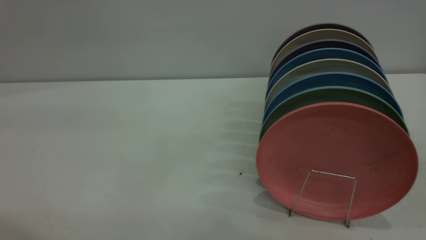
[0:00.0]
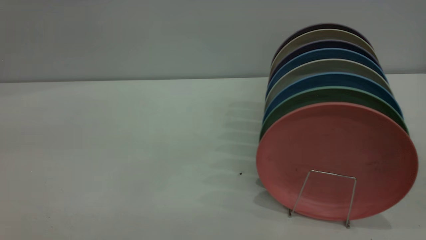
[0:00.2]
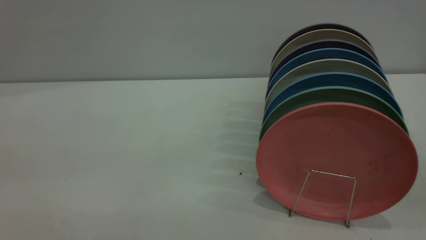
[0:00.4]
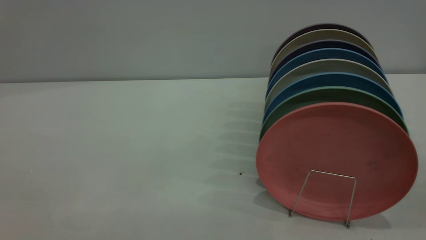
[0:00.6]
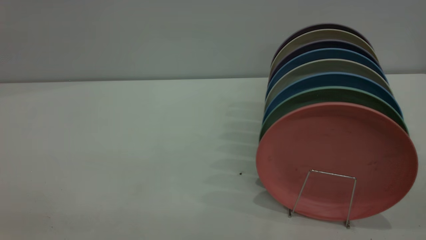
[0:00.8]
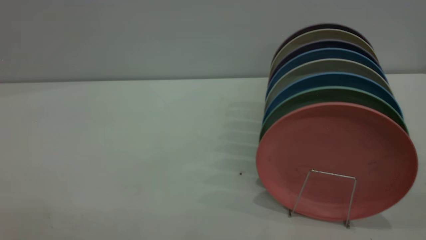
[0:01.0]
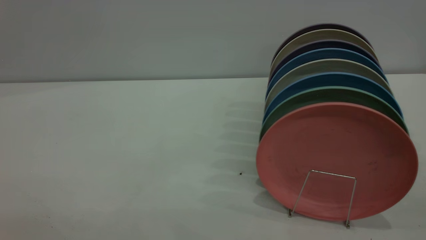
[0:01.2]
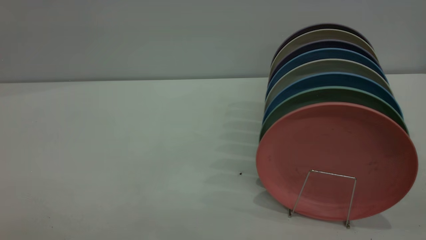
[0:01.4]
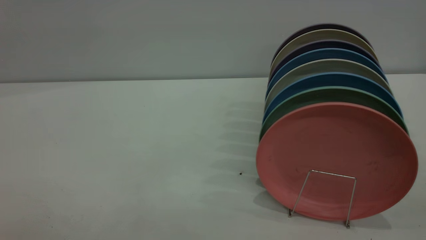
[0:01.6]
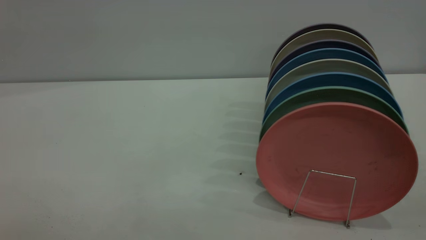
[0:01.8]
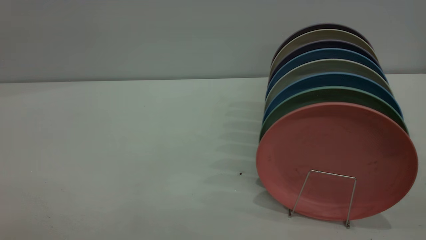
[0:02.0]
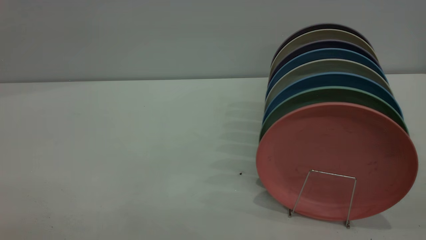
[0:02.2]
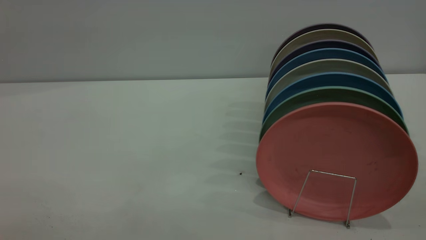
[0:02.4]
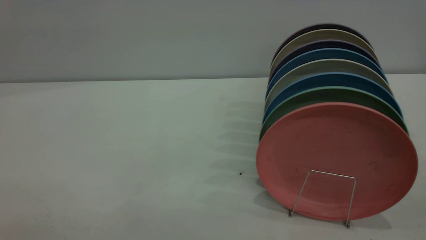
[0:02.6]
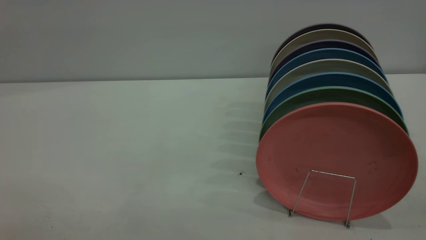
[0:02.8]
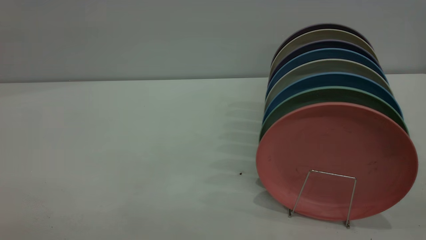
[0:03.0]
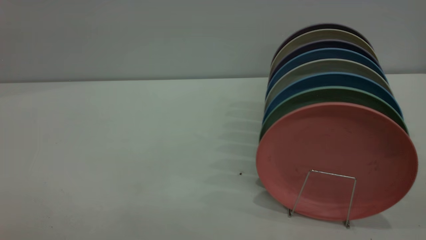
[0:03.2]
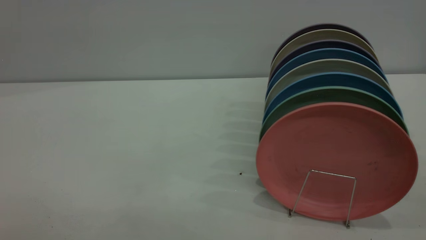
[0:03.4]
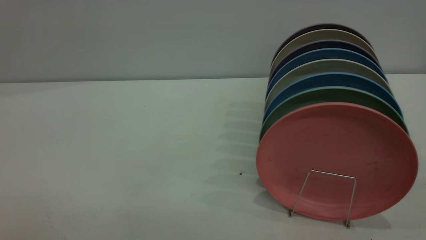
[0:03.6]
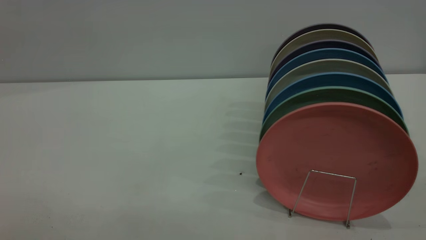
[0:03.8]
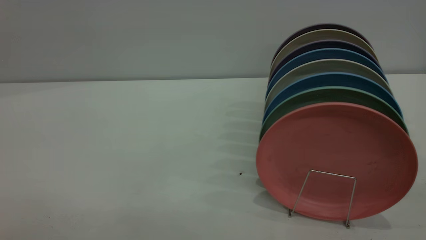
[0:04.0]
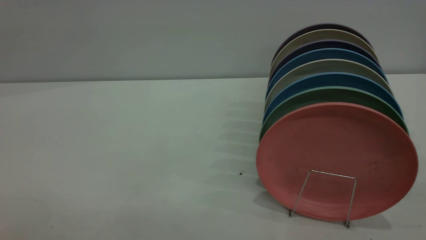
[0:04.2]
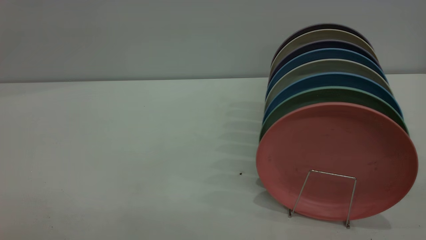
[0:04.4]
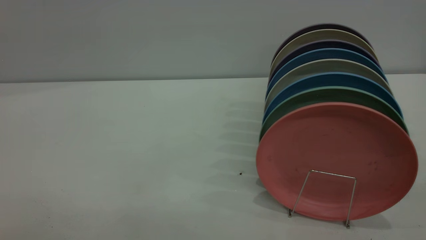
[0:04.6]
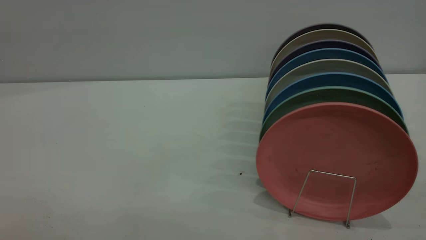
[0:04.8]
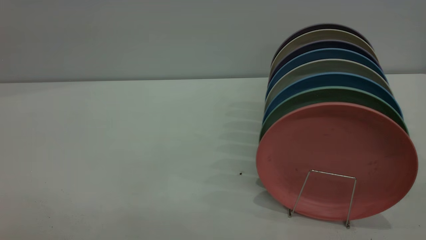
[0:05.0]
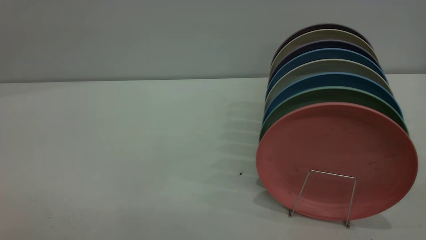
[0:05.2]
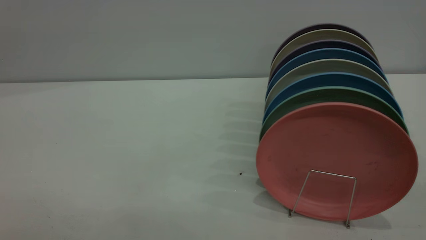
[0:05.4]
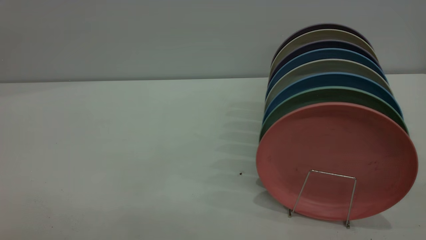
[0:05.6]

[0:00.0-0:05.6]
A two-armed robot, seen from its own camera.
Task of the whole recording: put the plate on the plate rack.
0:04.2 to 0:05.6: Neither gripper changes place.

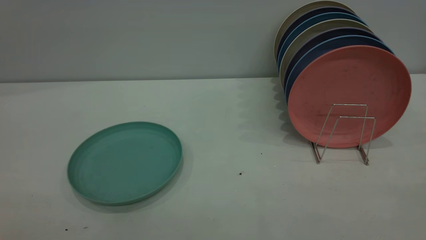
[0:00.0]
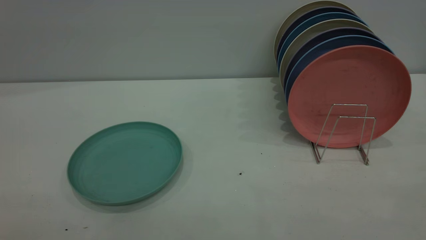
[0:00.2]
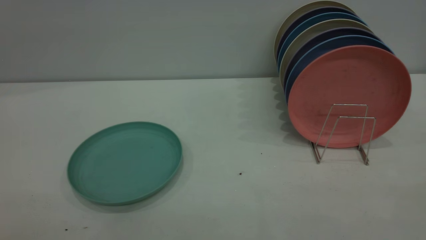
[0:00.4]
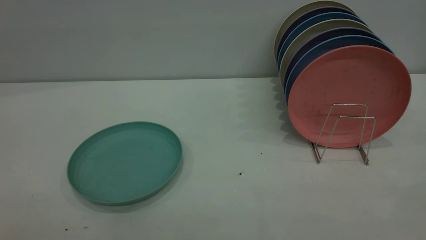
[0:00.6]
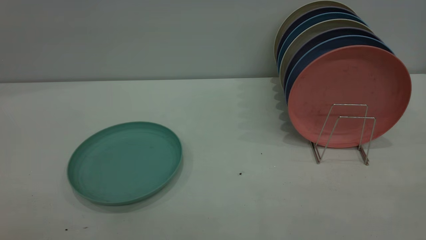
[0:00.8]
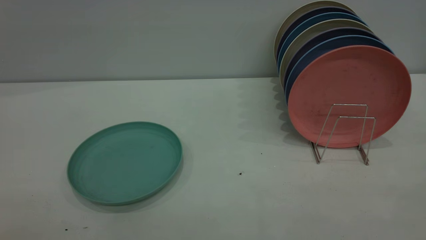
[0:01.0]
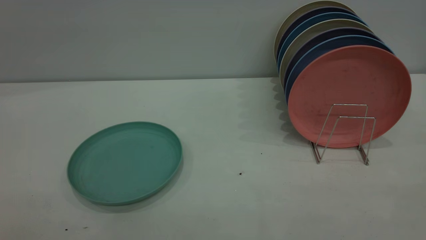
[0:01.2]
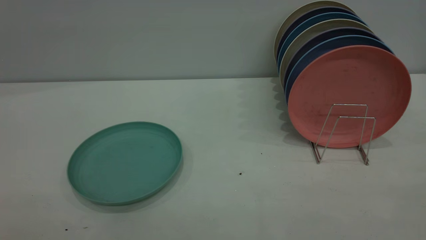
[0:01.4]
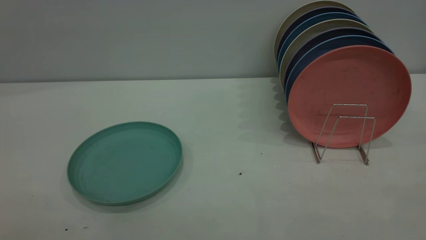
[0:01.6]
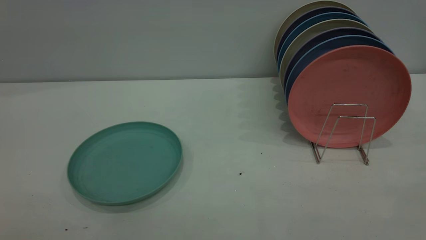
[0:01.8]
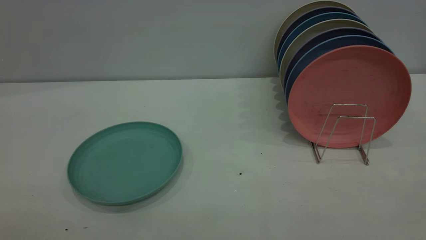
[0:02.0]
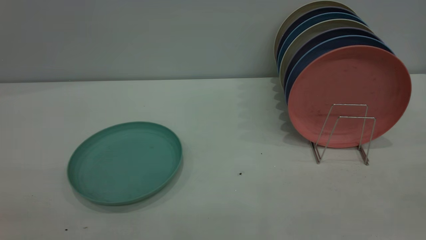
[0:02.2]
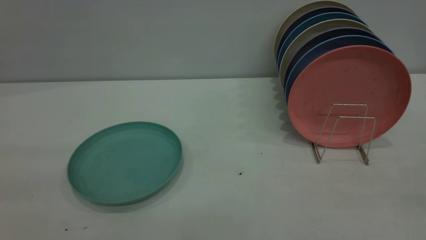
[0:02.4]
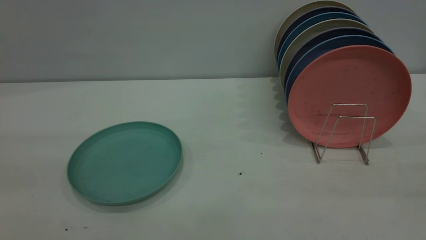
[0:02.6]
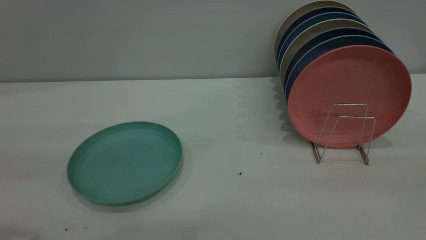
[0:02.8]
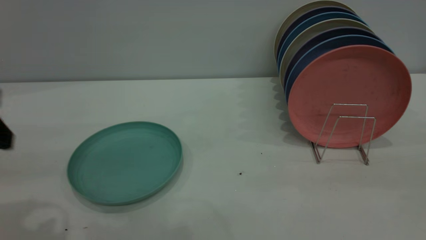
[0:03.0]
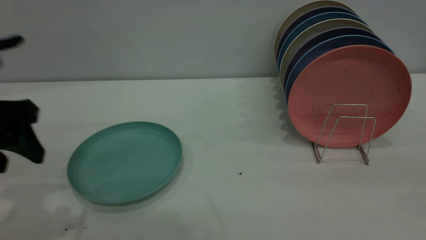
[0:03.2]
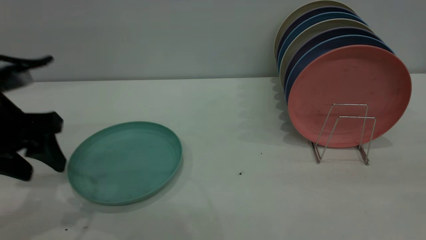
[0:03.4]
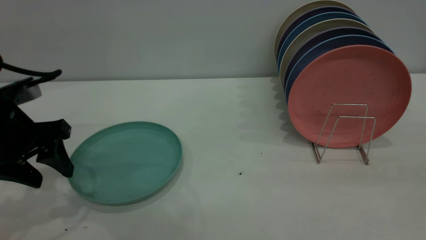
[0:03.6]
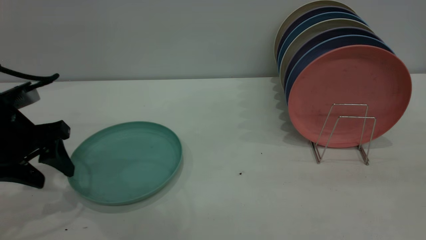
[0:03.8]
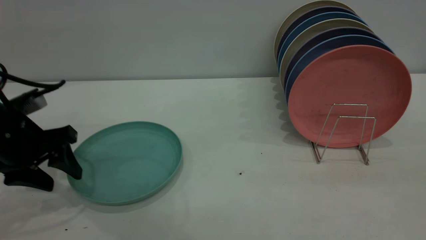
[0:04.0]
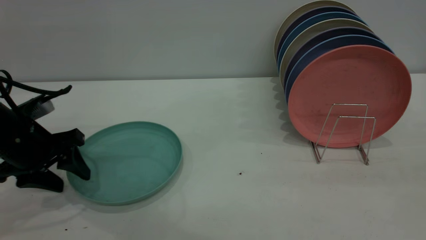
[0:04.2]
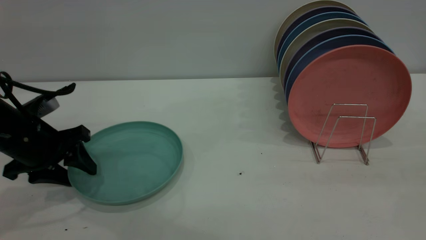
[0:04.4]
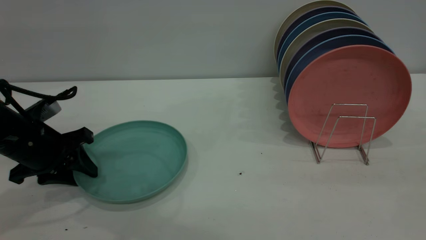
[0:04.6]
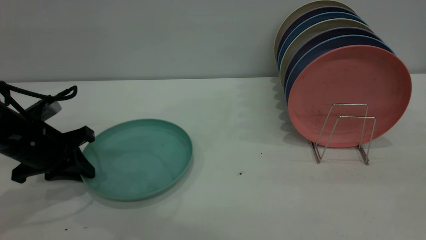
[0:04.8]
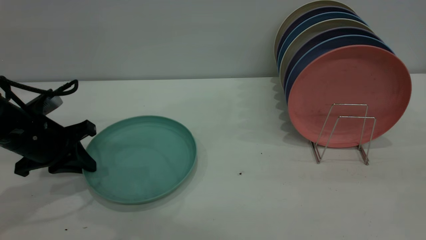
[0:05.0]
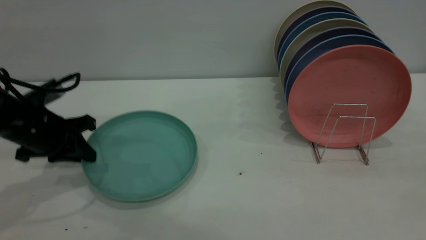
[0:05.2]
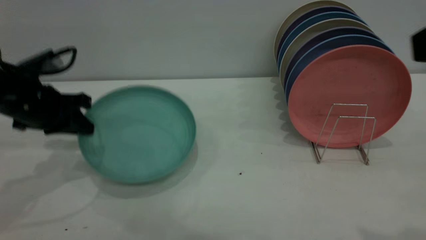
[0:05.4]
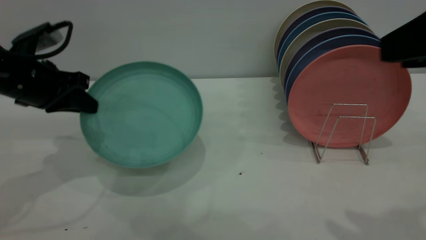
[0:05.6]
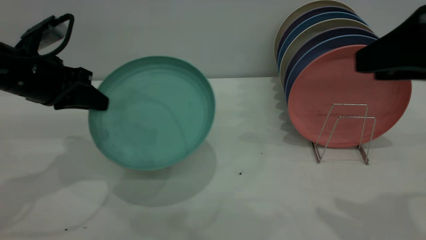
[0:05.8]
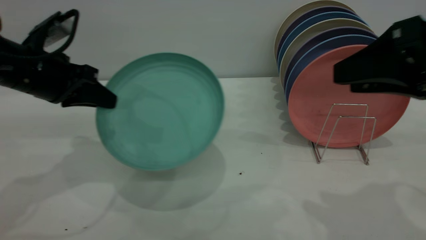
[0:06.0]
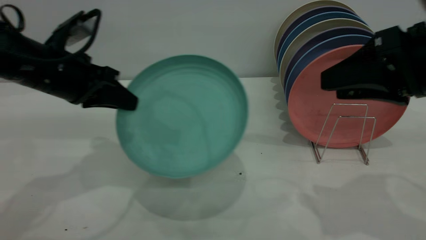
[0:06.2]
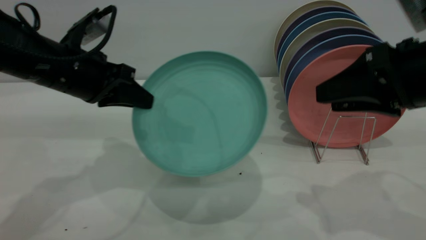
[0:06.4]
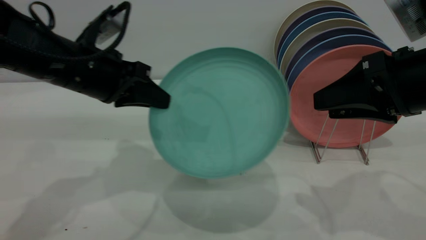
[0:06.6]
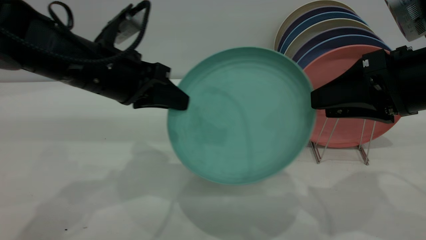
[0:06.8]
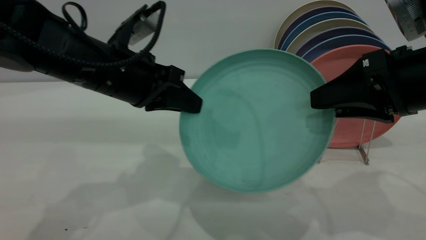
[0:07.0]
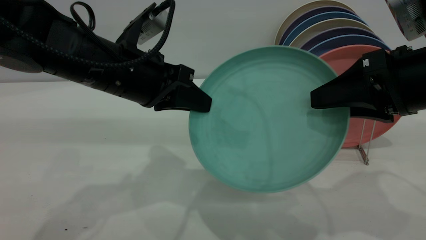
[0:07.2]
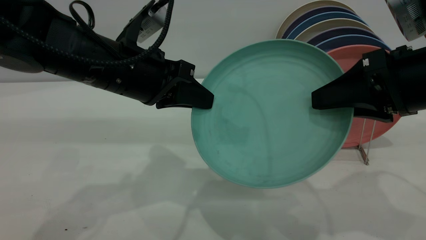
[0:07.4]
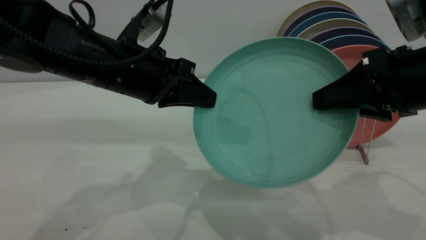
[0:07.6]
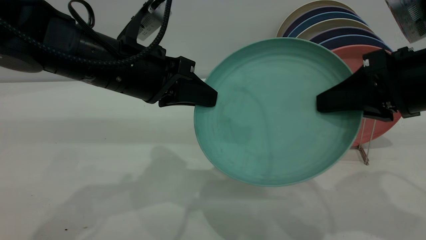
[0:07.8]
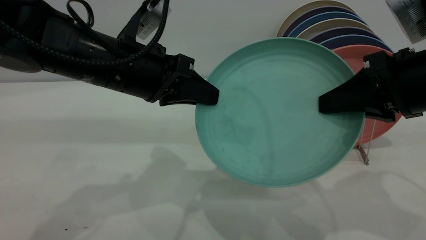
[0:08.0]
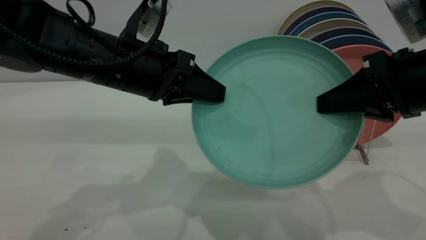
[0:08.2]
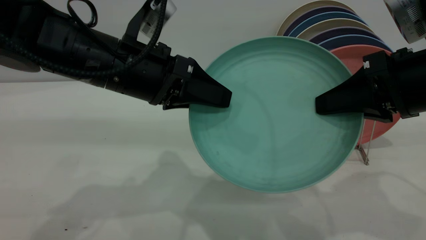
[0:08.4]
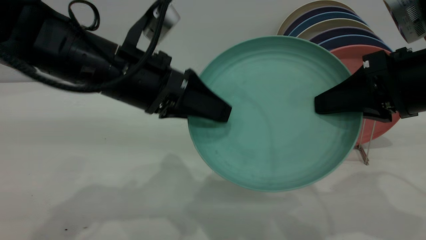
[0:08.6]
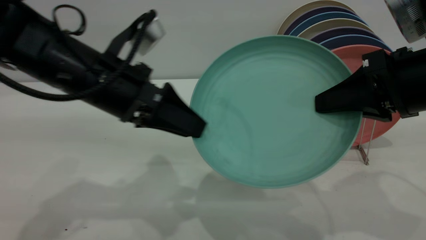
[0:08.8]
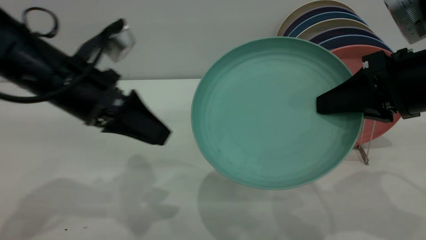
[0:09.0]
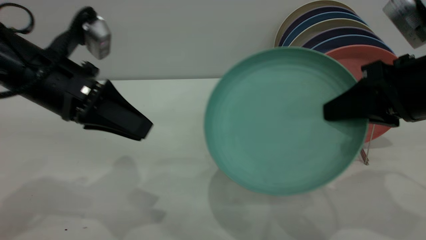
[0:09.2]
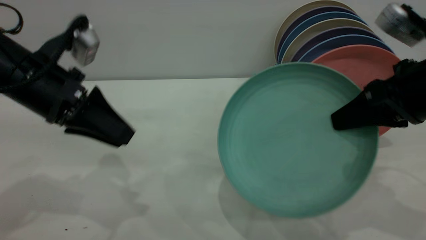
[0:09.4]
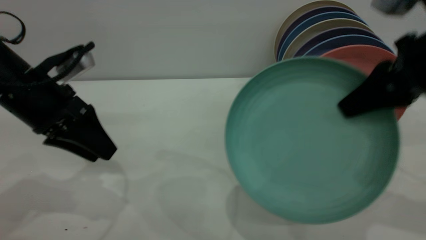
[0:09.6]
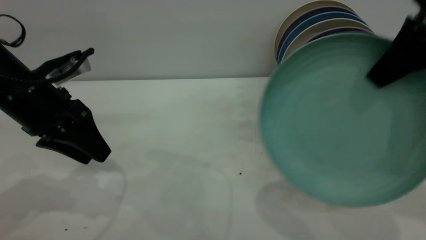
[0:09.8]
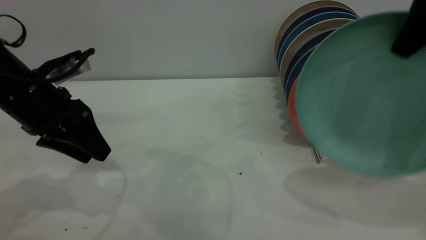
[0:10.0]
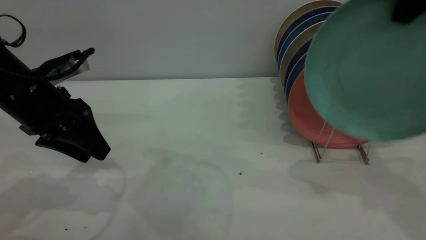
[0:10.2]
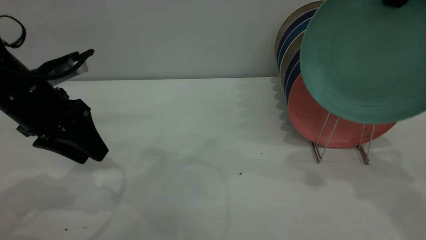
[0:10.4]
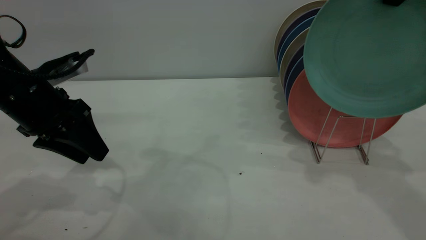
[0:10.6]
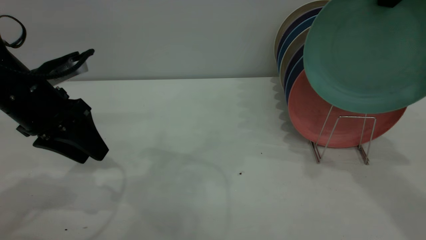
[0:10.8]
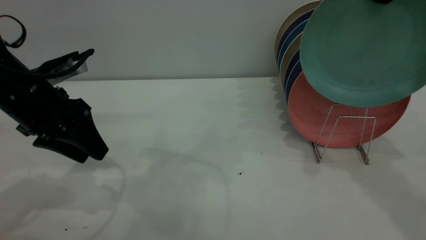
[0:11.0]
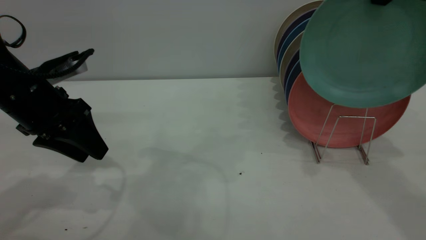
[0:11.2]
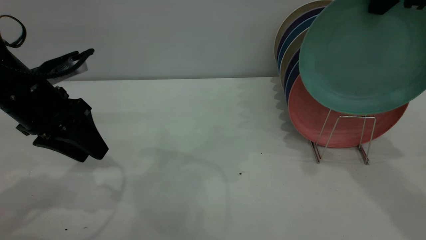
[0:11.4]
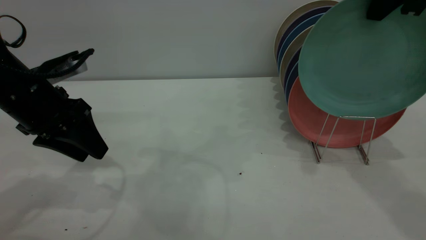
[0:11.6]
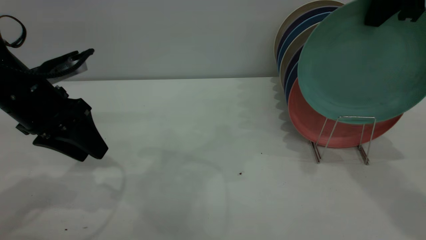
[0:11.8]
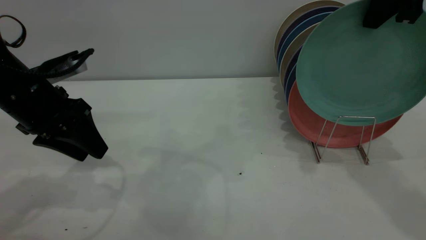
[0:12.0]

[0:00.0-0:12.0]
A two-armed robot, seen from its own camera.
Task of the whole recording: the left gripper grasp the green plate, the left gripper pass the green plate to the right gripper, and the right gripper place the green plate on the plate rack.
Step, 0:00.0 to 0:05.4: Pick up the plate with the left gripper.
Step, 0:05.8 to 0:08.8: Pass the plate from the left gripper to the right gripper.
0:00.0 to 0:01.6: Neither gripper changes place.
0:03.0 to 0:04.4: The left gripper is displaced downward and forward by roughly 15 cm.
0:04.4 to 0:06.0: The right gripper goes approximately 15 cm forward and downward; the left gripper is displaced upward by about 10 cm, and closes its fingers.
0:06.0 to 0:07.6: The left gripper moves to the right, roughly 15 cm, while the right gripper closes up.
0:07.6 to 0:09.0: The left gripper is displaced to the left by about 5 cm, and opens up.
0:09.0 to 0:10.4: The left gripper goes some 5 cm to the left. The right gripper goes approximately 20 cm upward and forward.
0:10.4 to 0:12.0: The right gripper shifts by about 5 cm.
